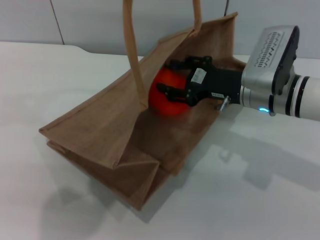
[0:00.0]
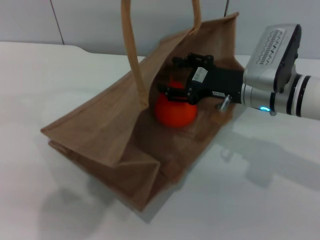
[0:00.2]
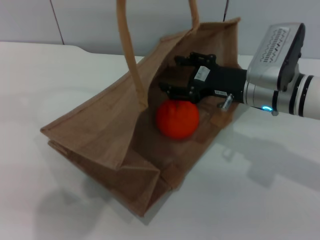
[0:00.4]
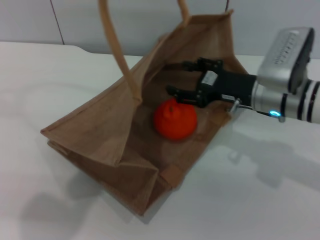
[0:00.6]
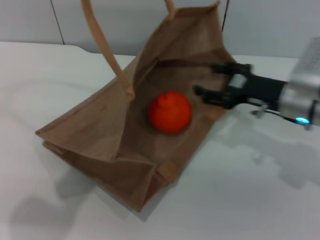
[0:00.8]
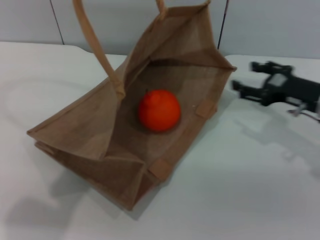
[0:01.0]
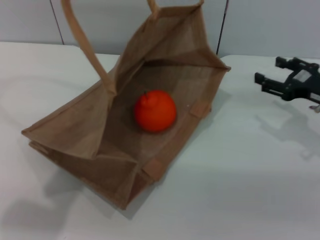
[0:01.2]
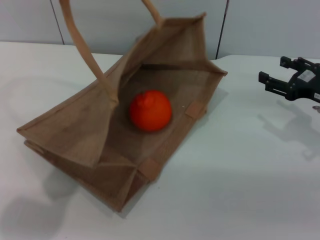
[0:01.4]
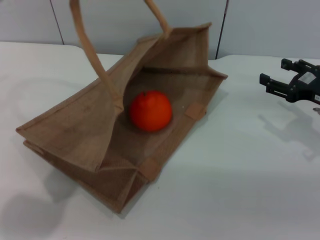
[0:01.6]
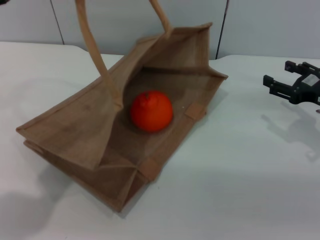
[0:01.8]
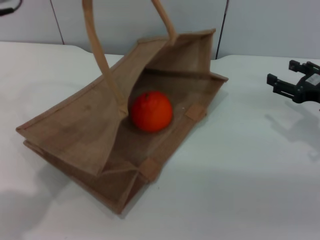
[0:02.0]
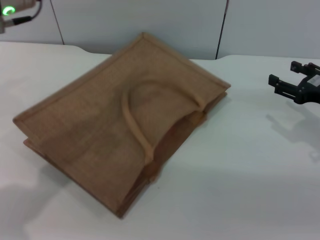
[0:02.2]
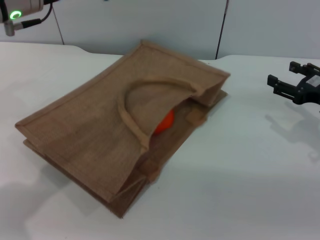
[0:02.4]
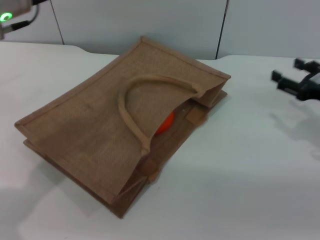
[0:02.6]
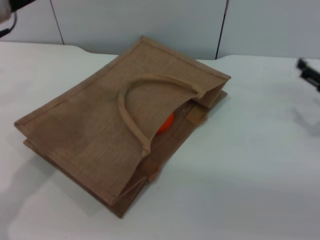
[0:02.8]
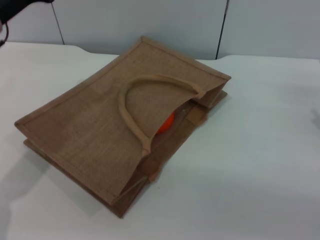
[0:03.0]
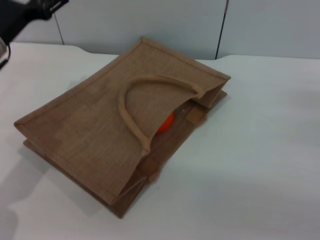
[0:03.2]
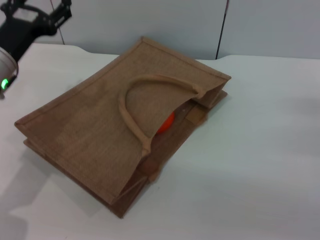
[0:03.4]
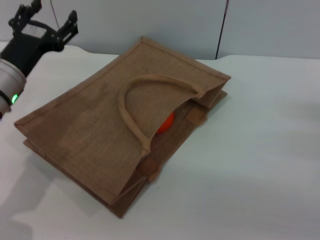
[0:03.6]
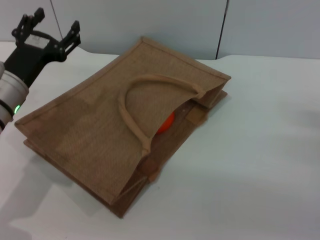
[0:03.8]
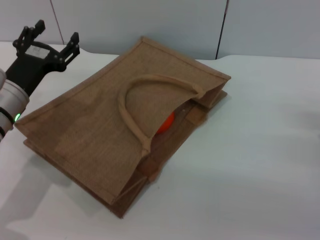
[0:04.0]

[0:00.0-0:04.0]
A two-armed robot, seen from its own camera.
Task of the whole recording: pick up the orange from the table and place it in the brown handbag.
Step, 0:00.6 to 0:02.4: Lower the woven bag with the left gripper to close it.
0:00.0 to 0:01.4: The left gripper is displaced to the left by some 10 cm. Meanwhile the right gripper is displaced to the right by approximately 15 cm, and opens.
0:01.4 to 0:02.6: The left gripper heads downward, covering some 5 cm, and opens up.
0:02.6 to 0:04.0: The left gripper heads downward, covering approximately 15 cm; the right gripper goes approximately 10 cm backward and downward.
